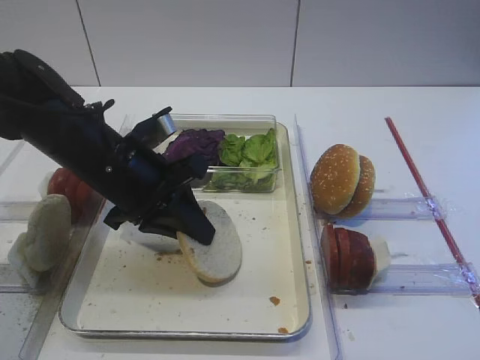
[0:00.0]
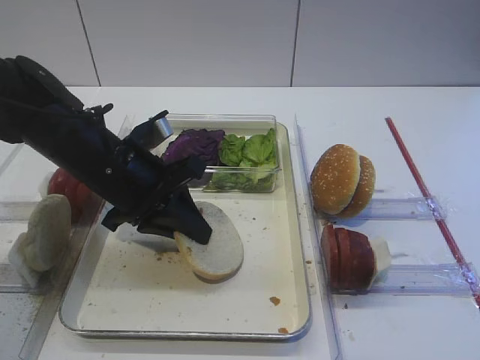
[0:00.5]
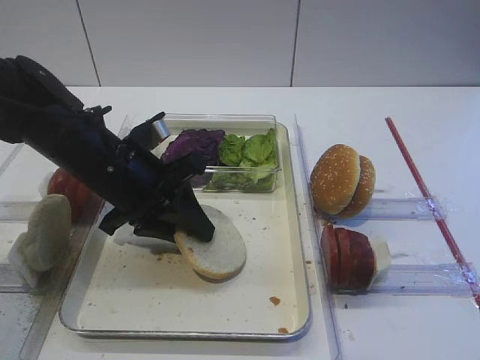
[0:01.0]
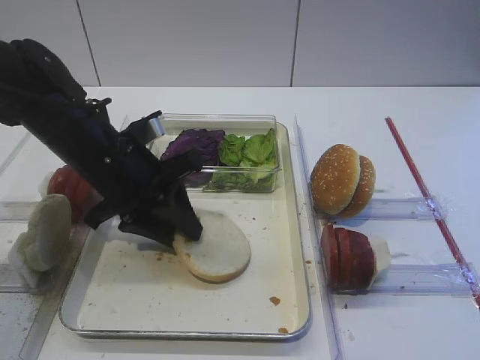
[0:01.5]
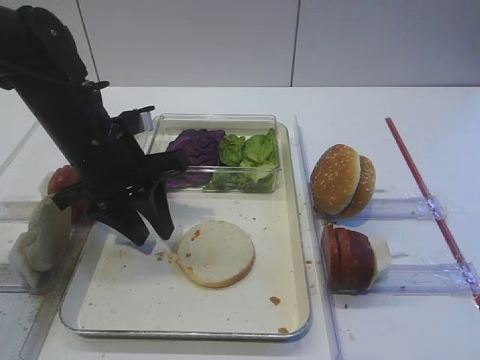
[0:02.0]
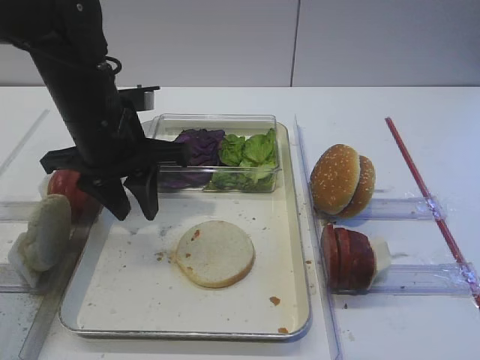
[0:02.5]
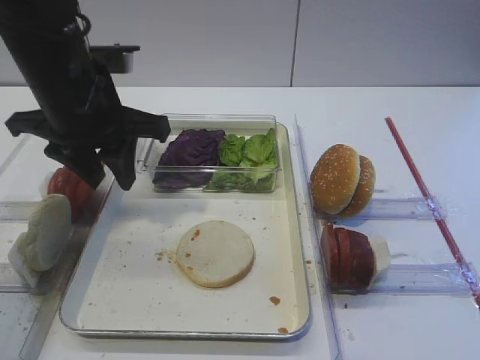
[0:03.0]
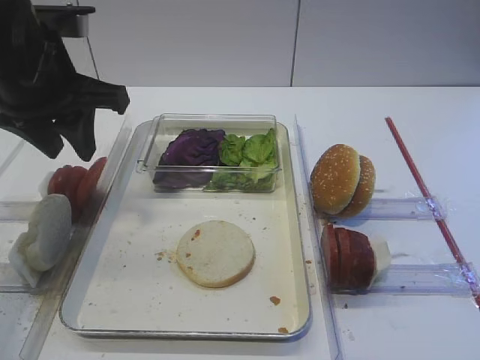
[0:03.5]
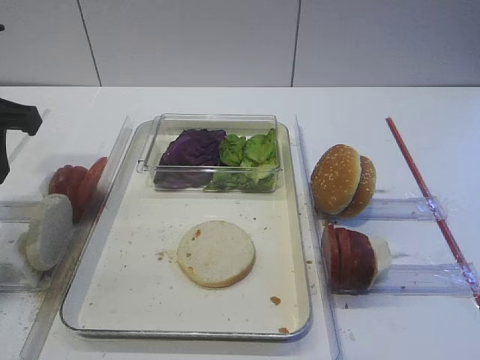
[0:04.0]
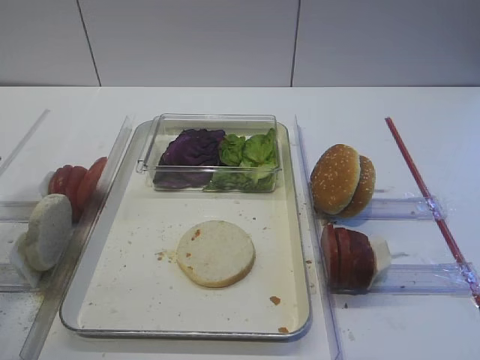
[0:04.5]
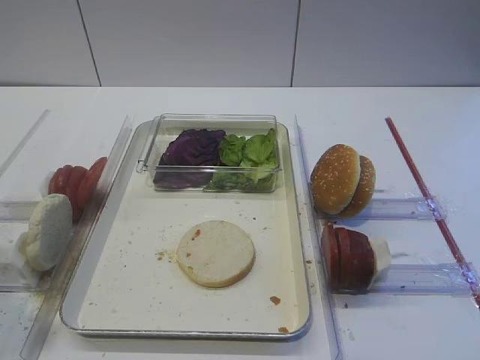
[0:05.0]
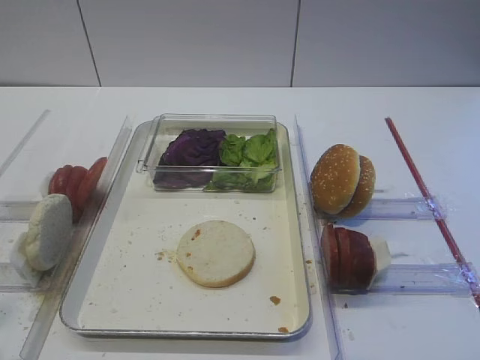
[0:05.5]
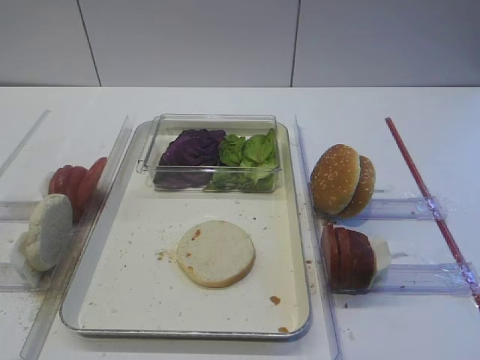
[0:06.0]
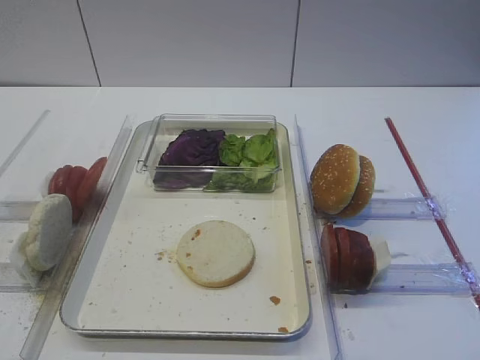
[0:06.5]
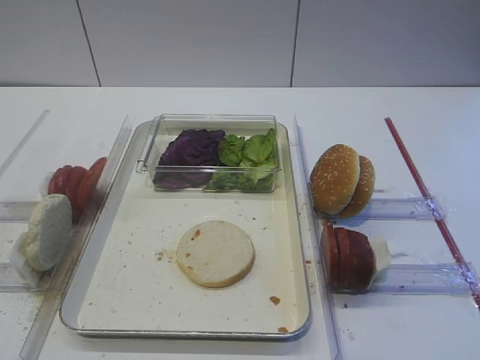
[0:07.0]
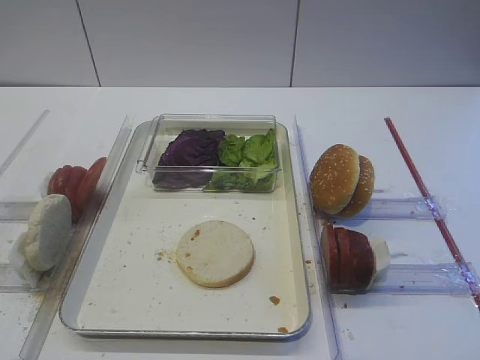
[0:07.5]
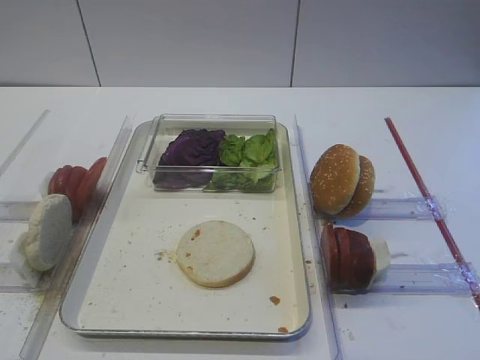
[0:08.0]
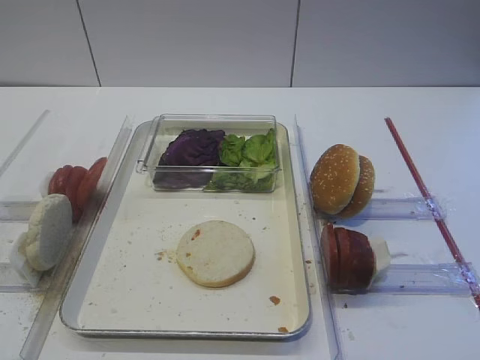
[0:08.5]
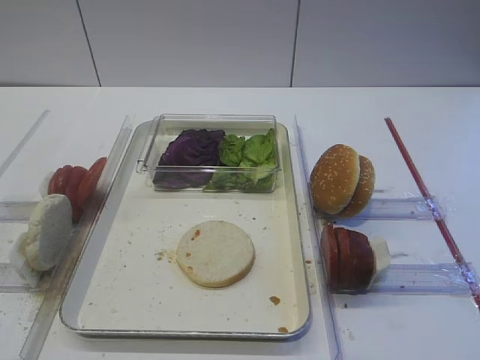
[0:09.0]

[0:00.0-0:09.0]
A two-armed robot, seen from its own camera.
0:00.0 to 0:02.0: The left gripper opens its fingers.
0:02.0 to 0:04.5: The left gripper moves to the left, backward and upward, roughly 20 cm.
0:04.5 to 0:07.0: The left gripper goes approximately 20 cm backward.
0:07.0 to 0:09.0: Neither gripper changes place.
